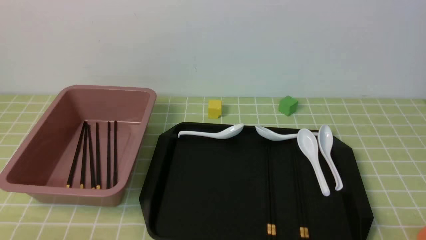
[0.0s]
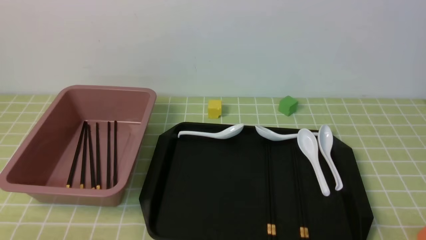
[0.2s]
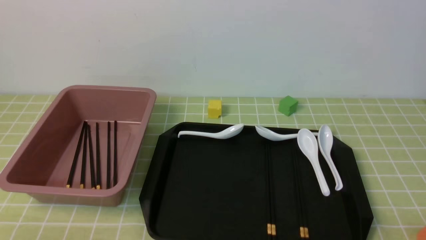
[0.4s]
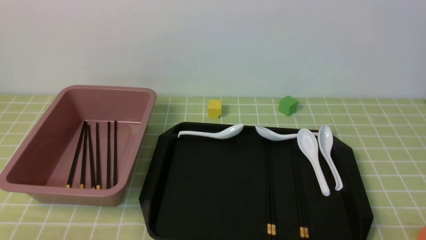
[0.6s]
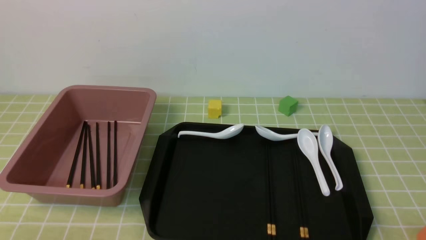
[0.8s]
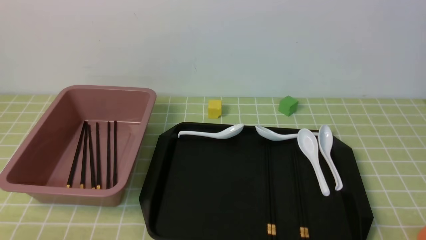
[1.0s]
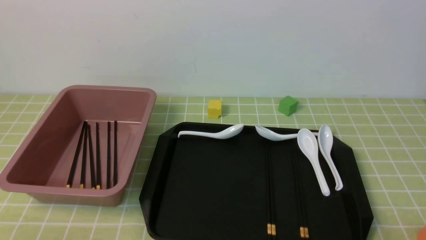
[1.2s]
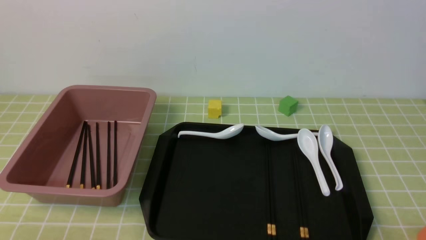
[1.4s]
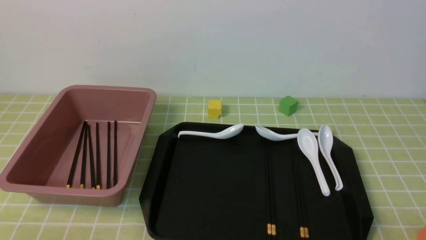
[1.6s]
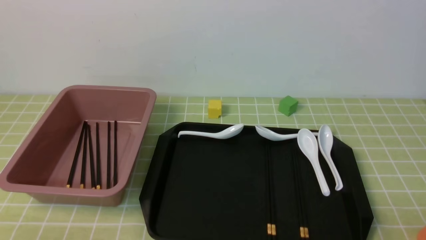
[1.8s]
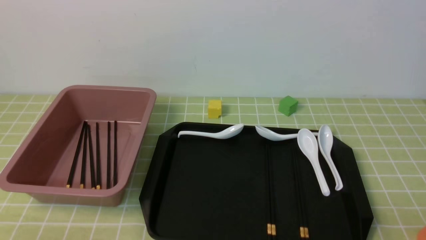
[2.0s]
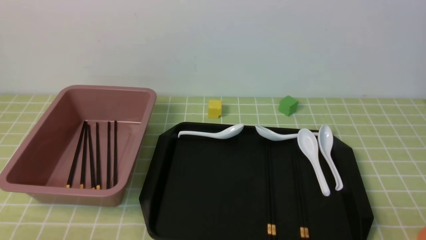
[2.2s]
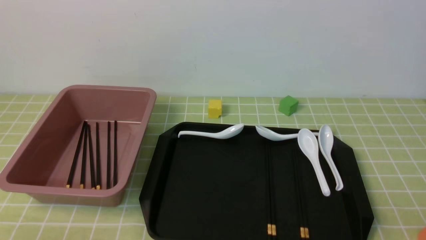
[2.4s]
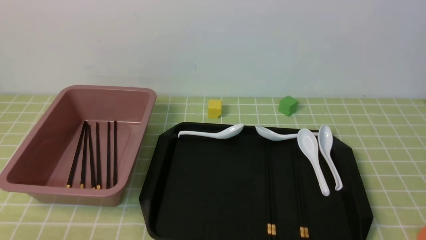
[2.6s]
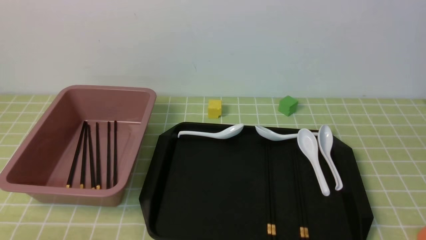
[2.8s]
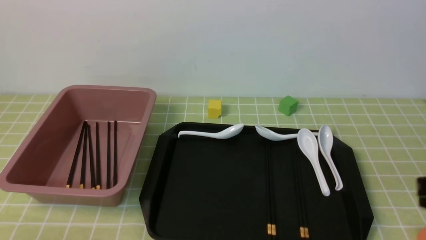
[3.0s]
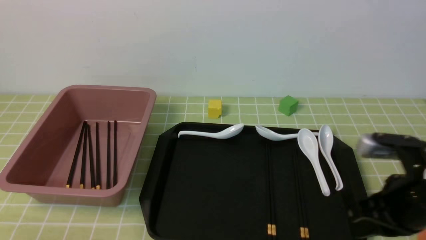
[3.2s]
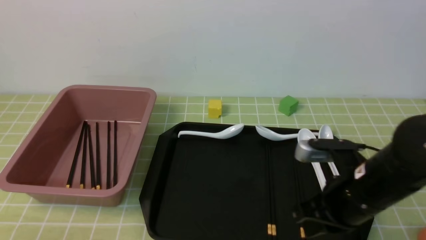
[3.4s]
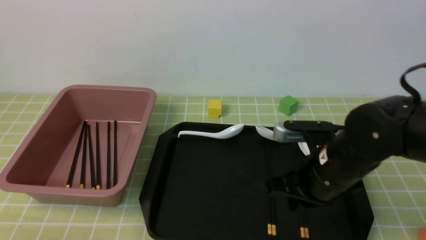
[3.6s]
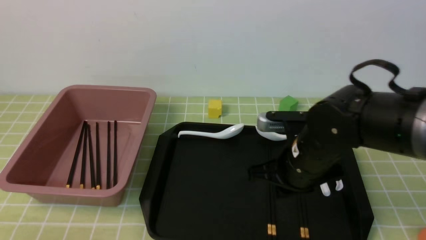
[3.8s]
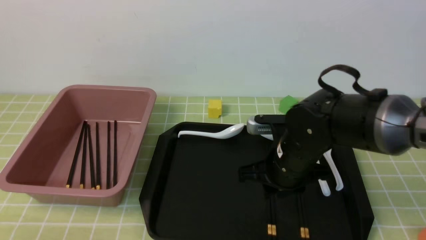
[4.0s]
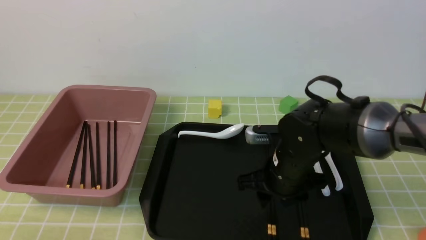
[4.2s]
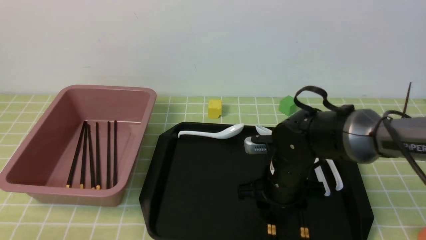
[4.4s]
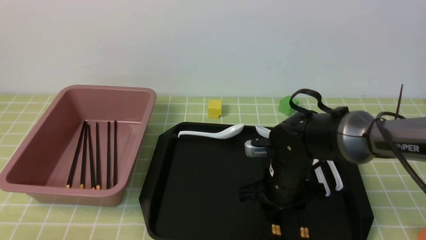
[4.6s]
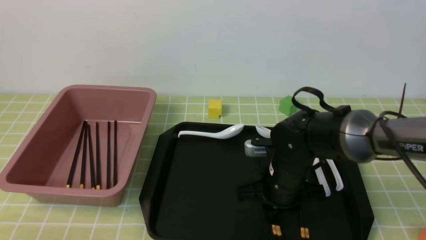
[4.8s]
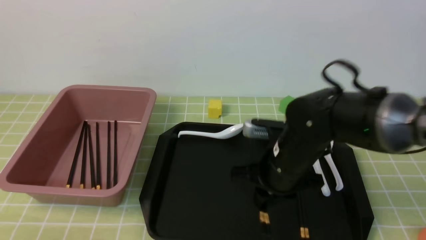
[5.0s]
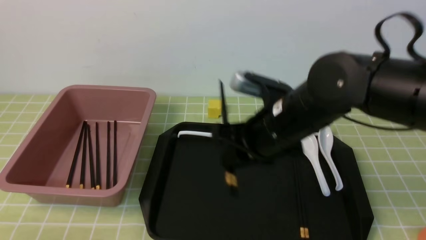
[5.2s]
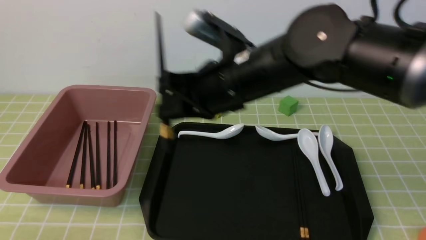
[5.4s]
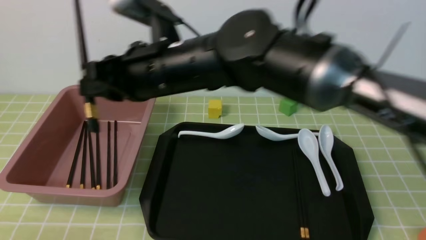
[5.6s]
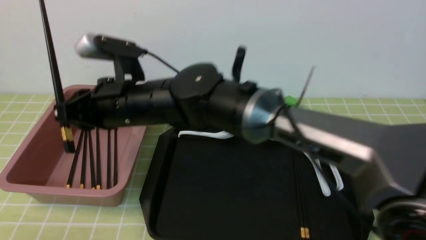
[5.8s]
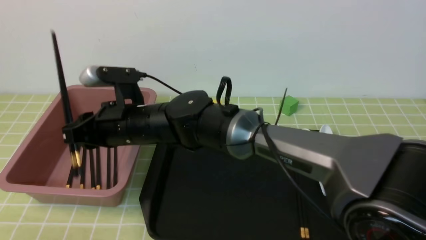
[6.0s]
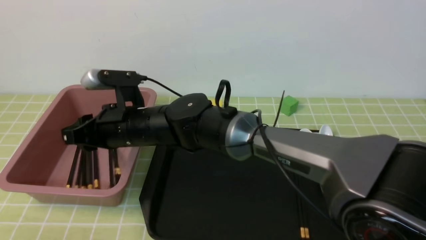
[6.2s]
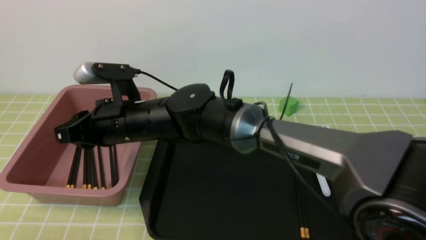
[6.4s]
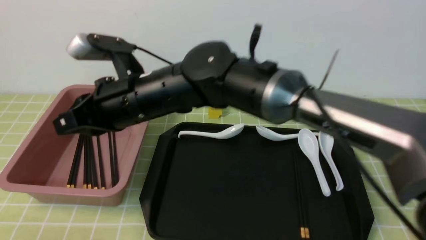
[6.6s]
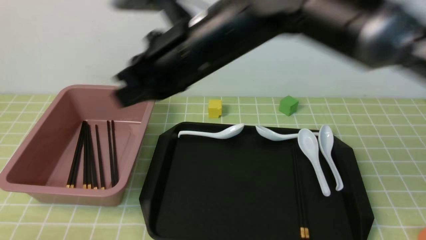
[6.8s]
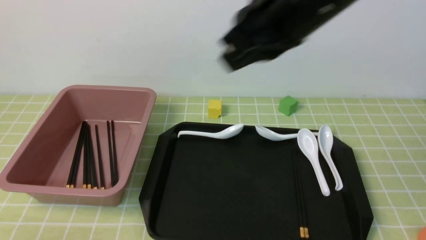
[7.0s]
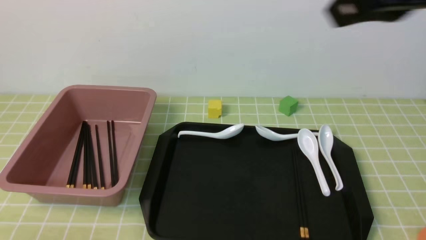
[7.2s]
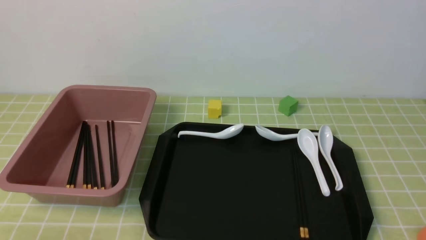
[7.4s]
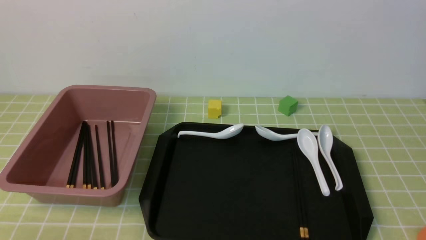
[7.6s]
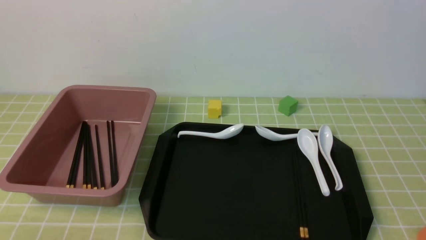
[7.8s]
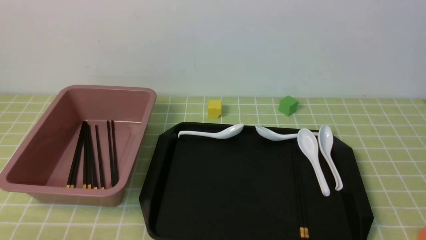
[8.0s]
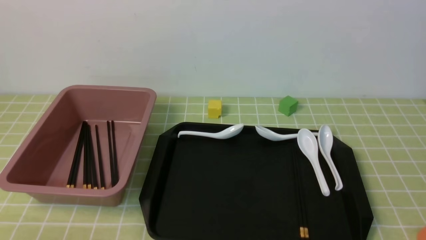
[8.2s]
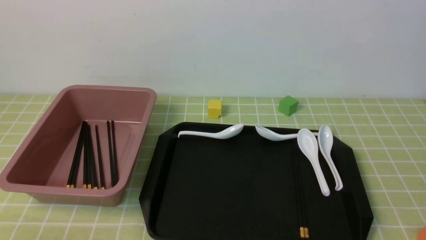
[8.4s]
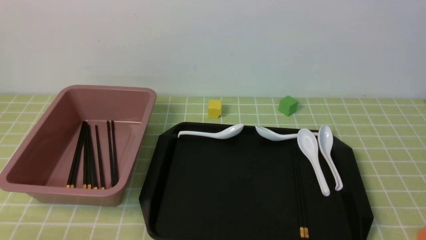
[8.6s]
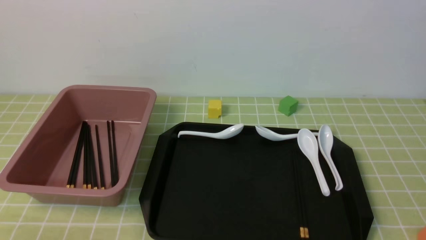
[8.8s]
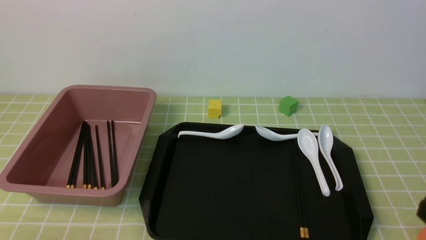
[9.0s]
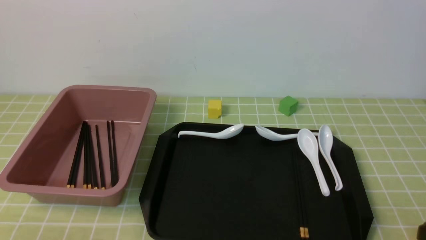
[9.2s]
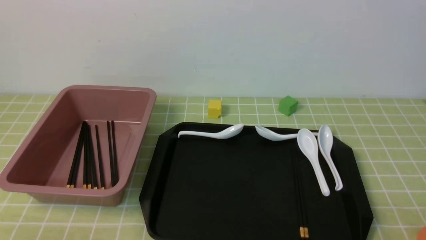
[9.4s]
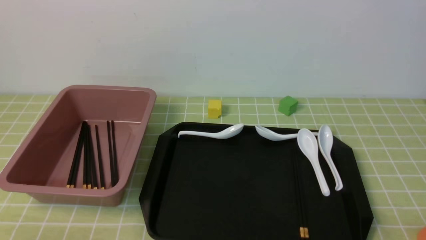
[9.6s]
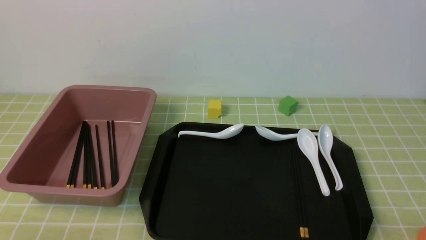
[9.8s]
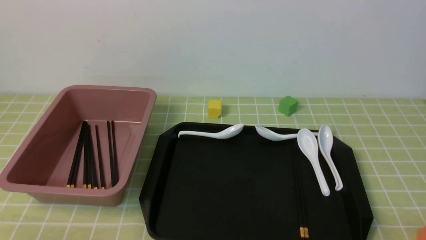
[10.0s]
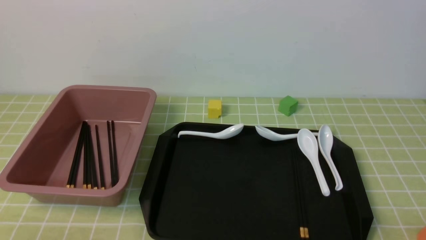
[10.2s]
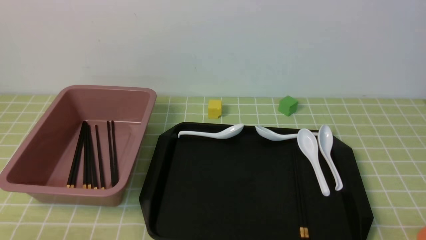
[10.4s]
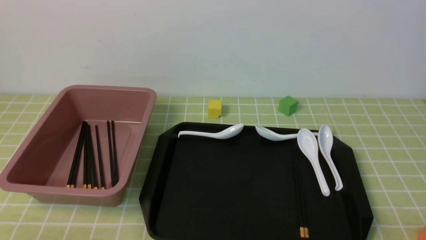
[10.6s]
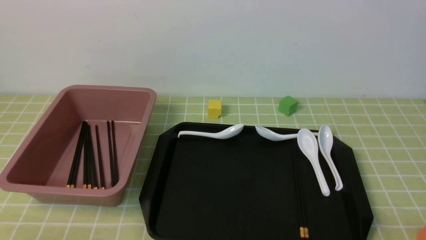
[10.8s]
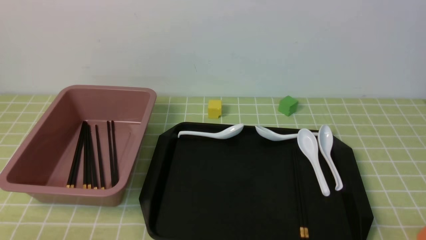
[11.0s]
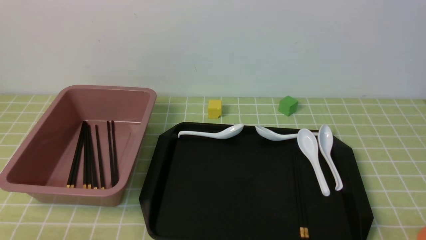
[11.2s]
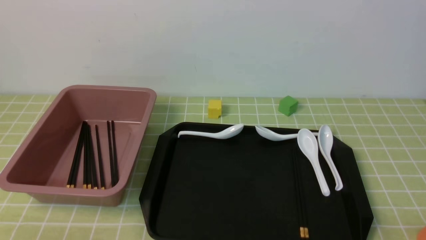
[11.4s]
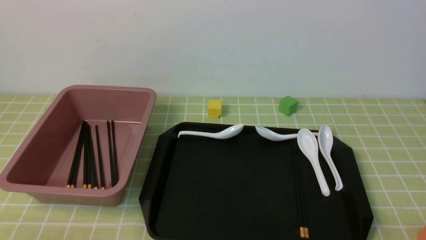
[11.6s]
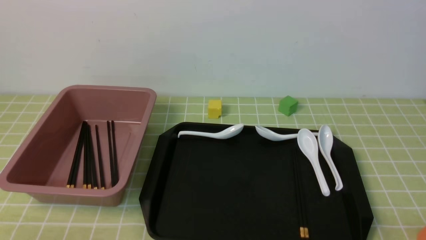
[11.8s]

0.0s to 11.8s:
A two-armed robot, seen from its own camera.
Step, 0.0s to 5.0s: use the right arm to grab a pair of chopsticks.
Step, 5.2s to 6.4s: use the right arm to put the chopsticks into the lunch box.
3.0s to 4.4s: The right gripper shifts about 30 cm to the left, forward and downward, and opens up.
4.4s to 6.0s: The right gripper goes about 25 cm to the left and upward, and closes up.
6.0s to 7.4s: The right gripper goes some 40 cm to the right, upward and backward, and closes.
10.4s to 11.8s: Both grippers stay put.

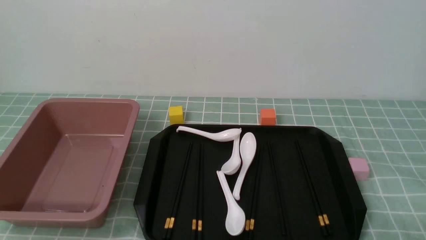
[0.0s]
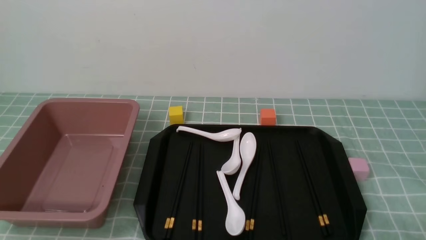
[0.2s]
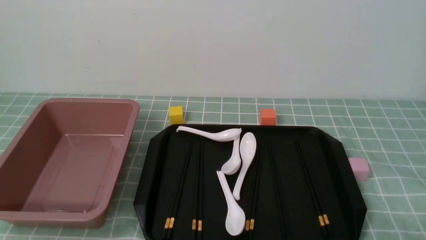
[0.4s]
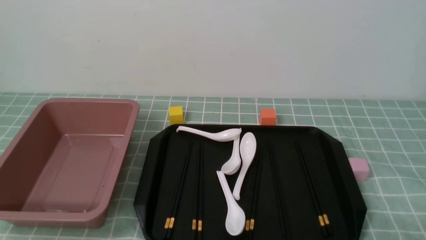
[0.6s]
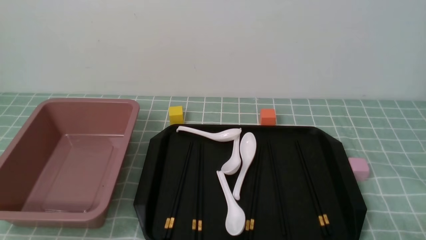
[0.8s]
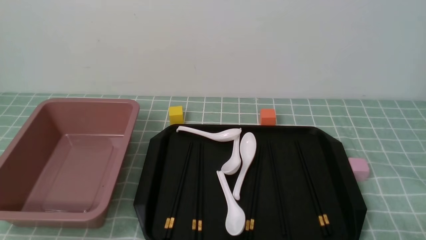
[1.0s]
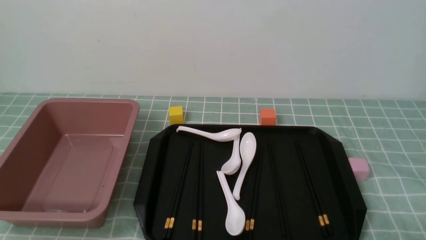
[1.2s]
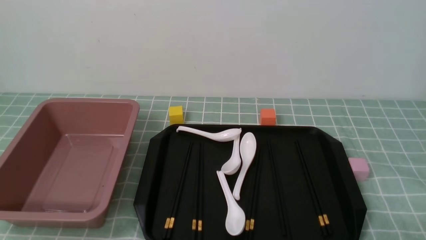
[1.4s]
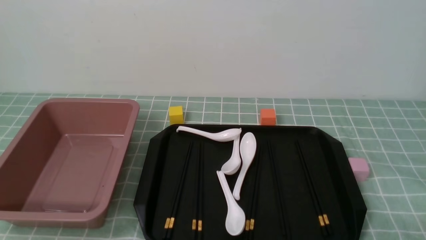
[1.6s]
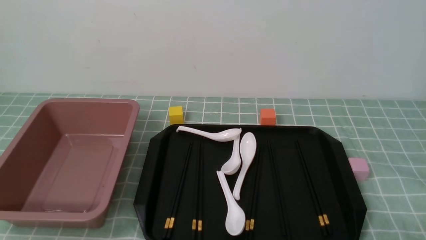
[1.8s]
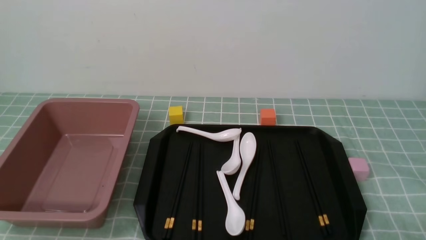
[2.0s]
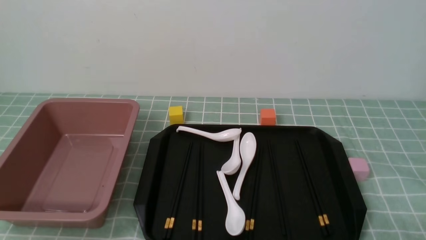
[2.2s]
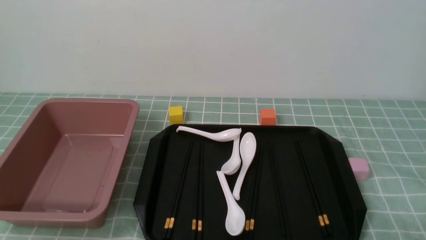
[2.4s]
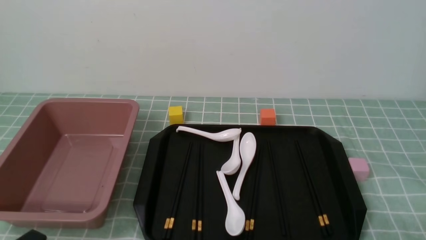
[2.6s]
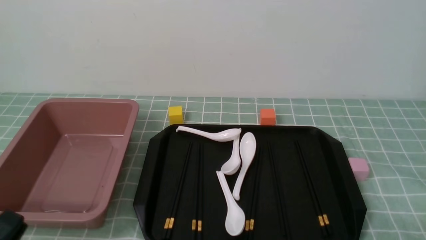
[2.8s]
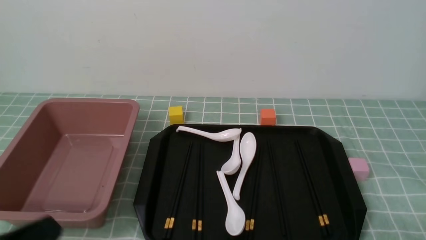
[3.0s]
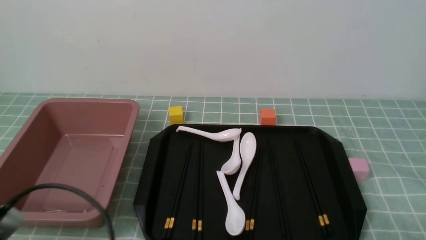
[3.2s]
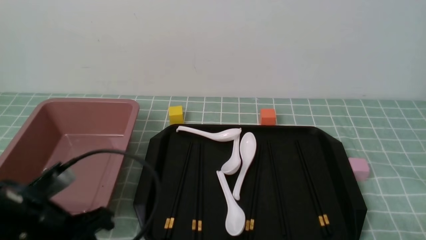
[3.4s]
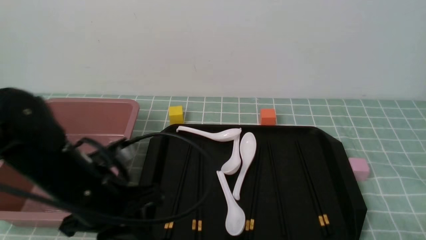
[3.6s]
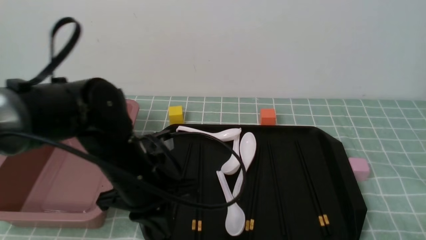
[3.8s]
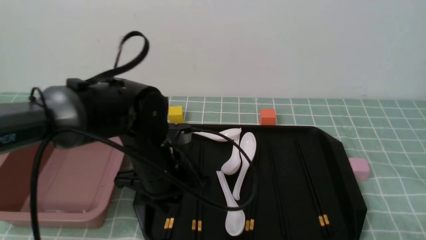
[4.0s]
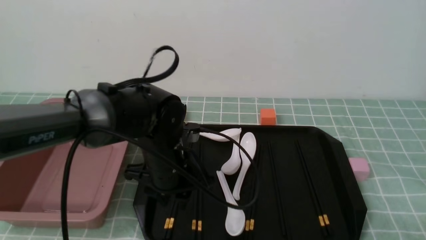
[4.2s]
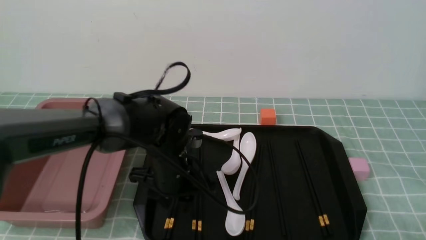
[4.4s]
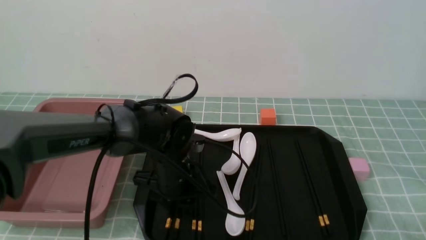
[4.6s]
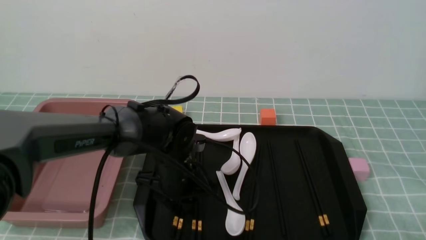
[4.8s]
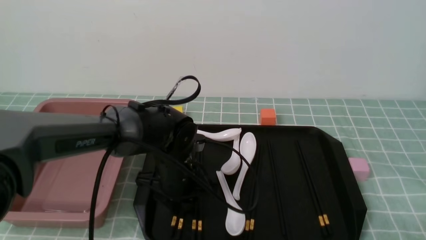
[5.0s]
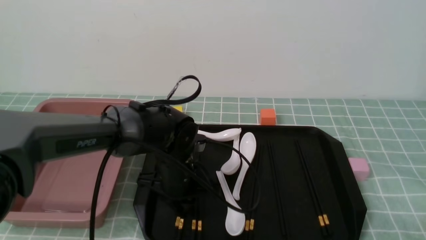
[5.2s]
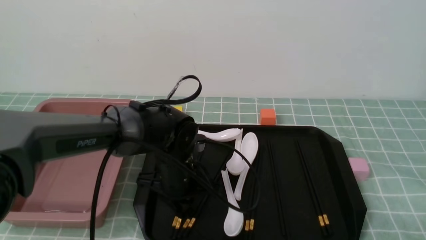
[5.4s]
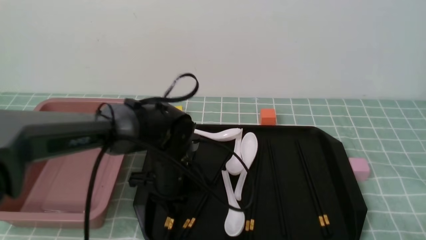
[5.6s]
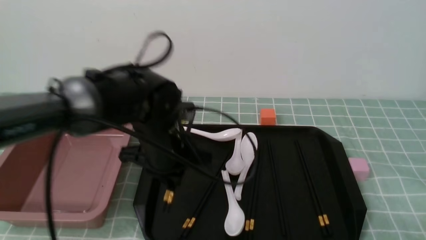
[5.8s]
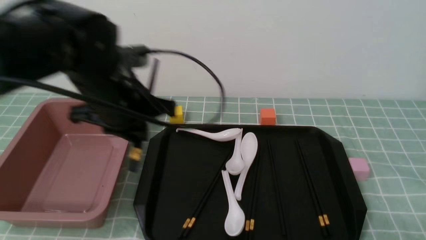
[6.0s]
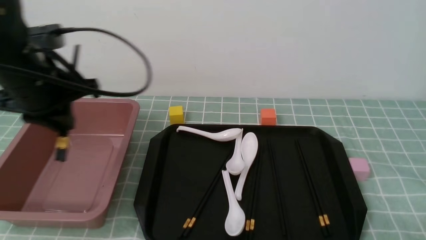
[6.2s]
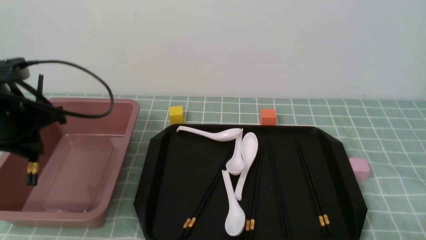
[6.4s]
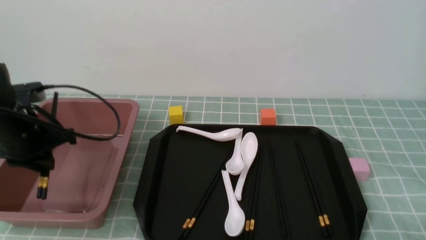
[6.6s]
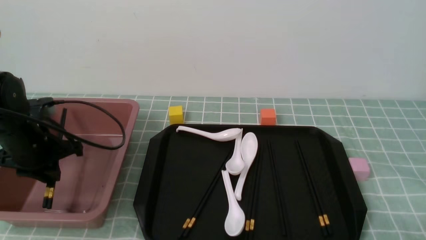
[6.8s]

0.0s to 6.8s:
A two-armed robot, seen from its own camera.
Step, 0.0s to 5.8s: use the left arm to grab a pair of chopsticks.
0.0s to 1.4s: The two grippers keep their place.
1.4s to 2.8s: The left gripper shifts roughly 5 cm upward, and closes up.
2.8s to 4.0s: The left gripper goes roughly 30 cm forward and to the right, and closes, then reopens.
4.0s to 5.4s: The left gripper heads downward, covering some 5 cm, and opens and closes again.
5.4s to 6.8s: The left gripper shifts about 25 cm to the left.
